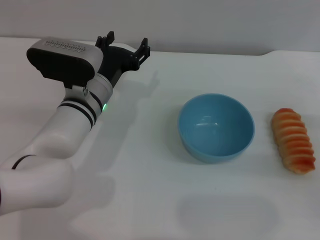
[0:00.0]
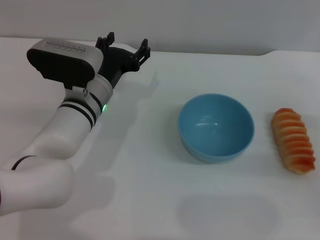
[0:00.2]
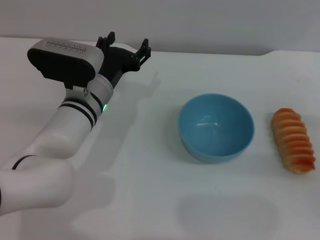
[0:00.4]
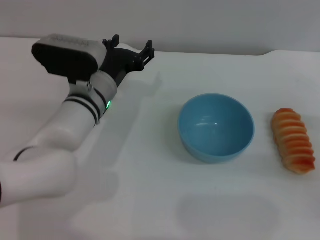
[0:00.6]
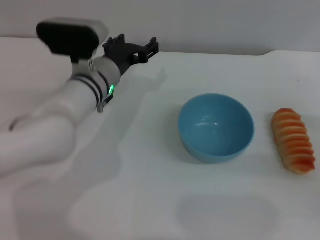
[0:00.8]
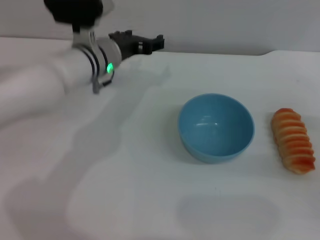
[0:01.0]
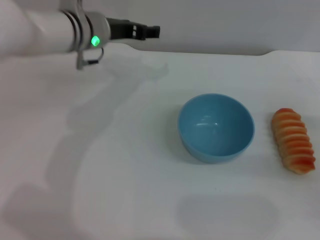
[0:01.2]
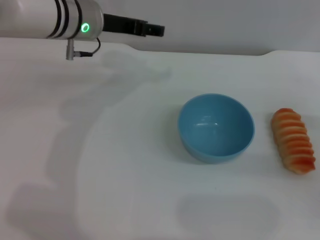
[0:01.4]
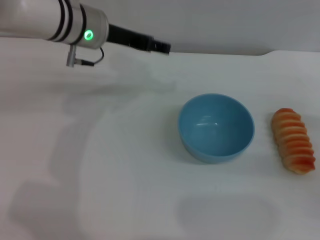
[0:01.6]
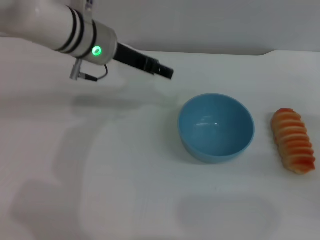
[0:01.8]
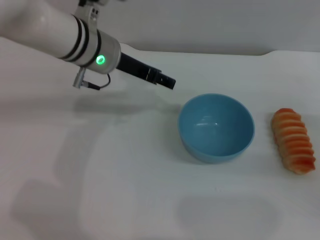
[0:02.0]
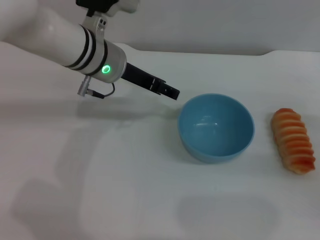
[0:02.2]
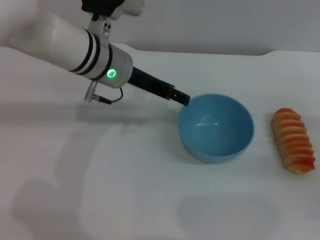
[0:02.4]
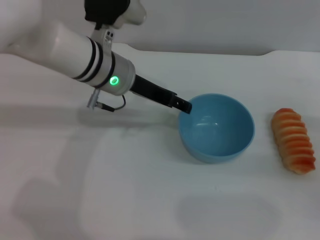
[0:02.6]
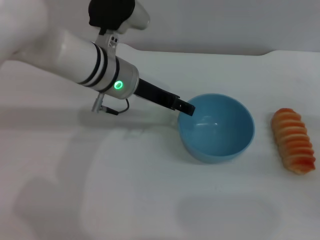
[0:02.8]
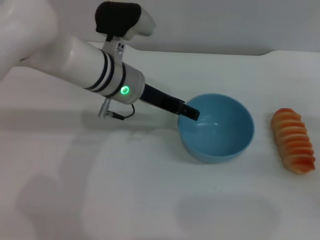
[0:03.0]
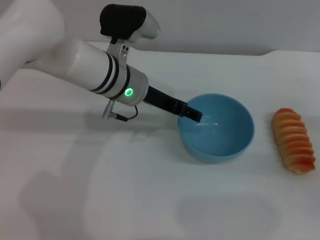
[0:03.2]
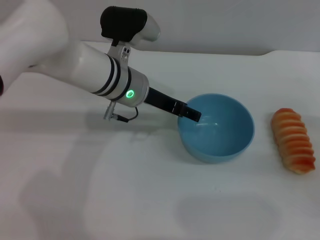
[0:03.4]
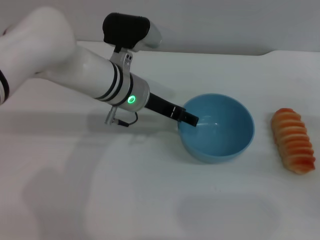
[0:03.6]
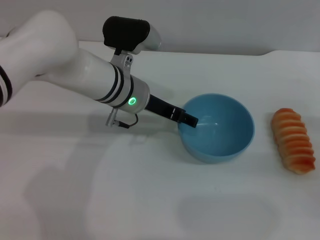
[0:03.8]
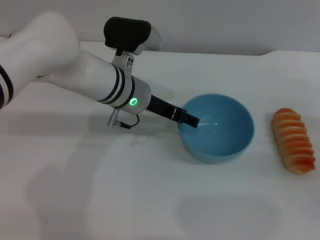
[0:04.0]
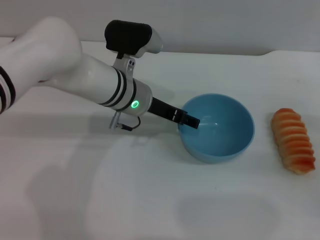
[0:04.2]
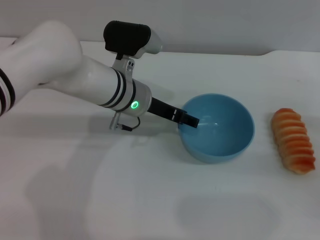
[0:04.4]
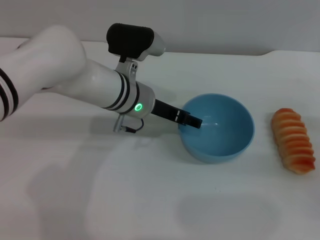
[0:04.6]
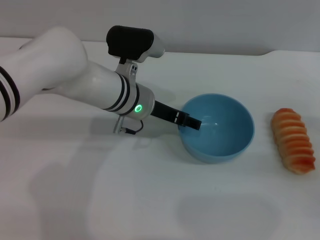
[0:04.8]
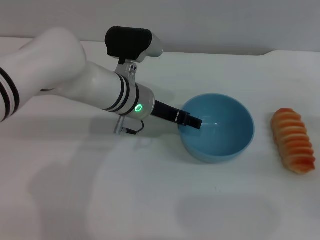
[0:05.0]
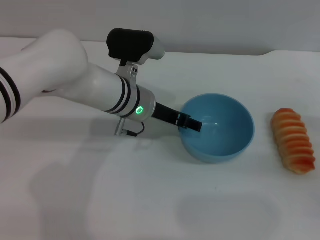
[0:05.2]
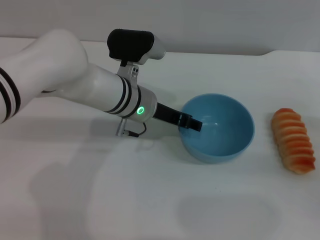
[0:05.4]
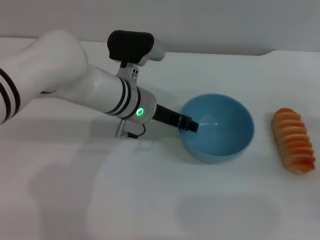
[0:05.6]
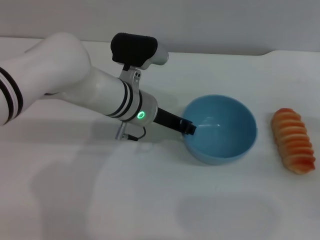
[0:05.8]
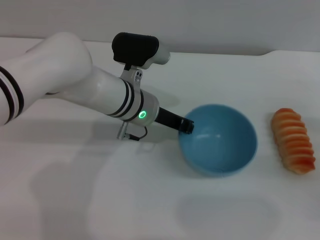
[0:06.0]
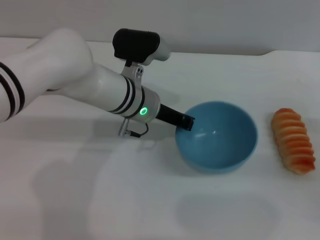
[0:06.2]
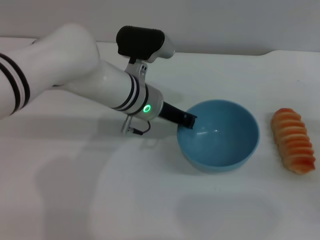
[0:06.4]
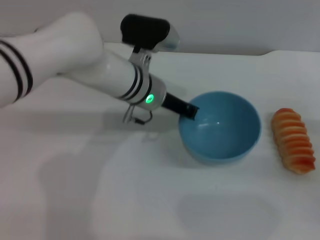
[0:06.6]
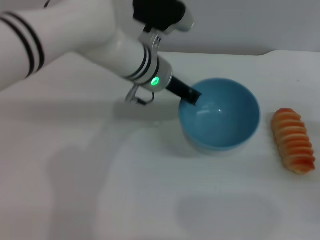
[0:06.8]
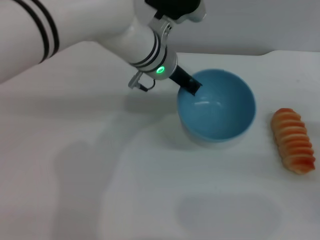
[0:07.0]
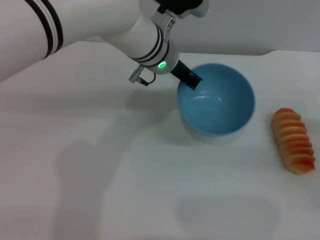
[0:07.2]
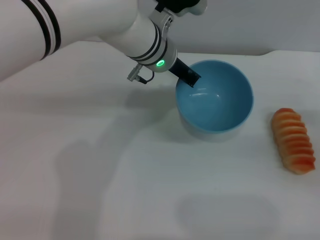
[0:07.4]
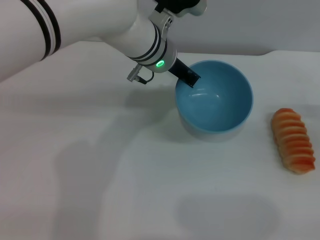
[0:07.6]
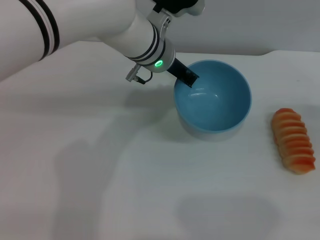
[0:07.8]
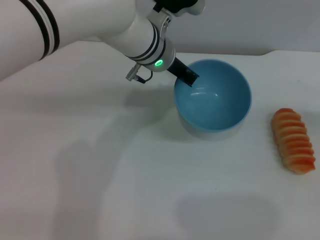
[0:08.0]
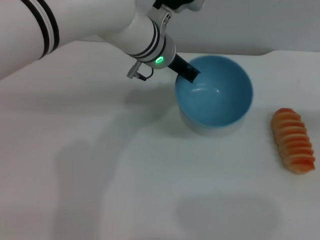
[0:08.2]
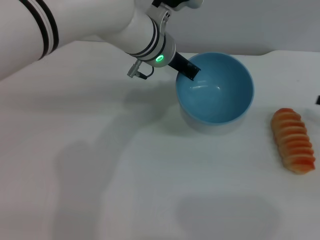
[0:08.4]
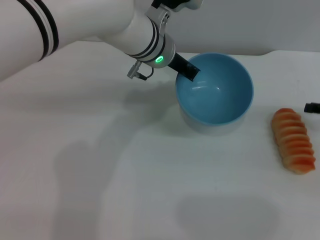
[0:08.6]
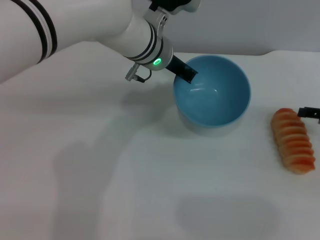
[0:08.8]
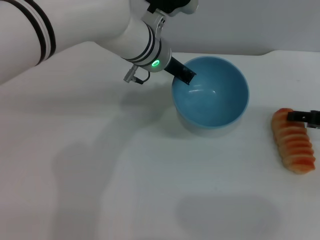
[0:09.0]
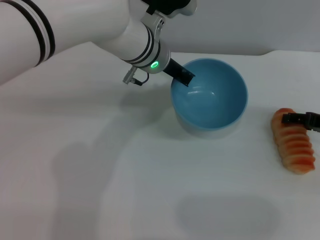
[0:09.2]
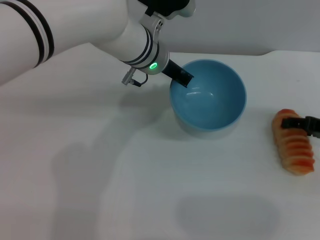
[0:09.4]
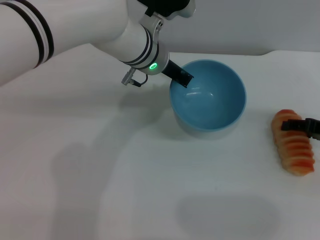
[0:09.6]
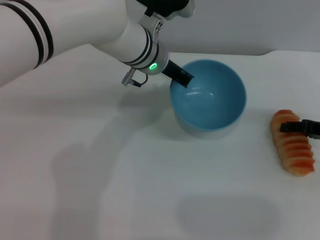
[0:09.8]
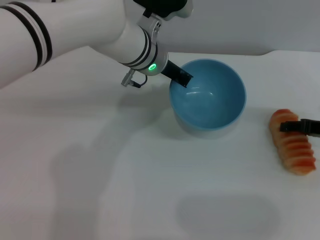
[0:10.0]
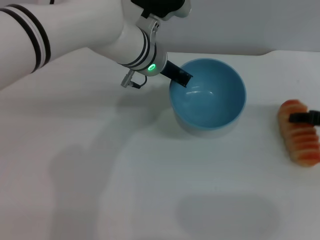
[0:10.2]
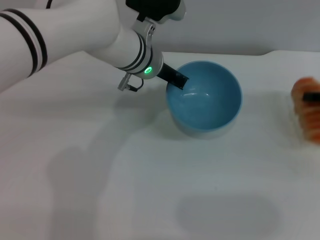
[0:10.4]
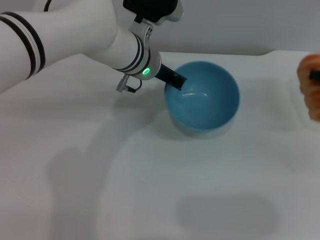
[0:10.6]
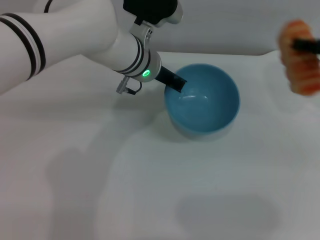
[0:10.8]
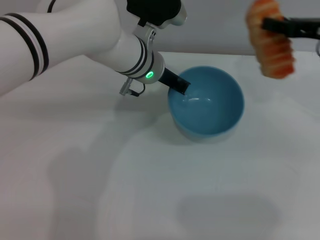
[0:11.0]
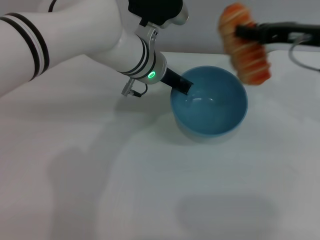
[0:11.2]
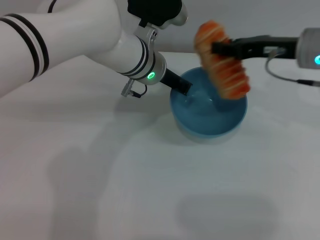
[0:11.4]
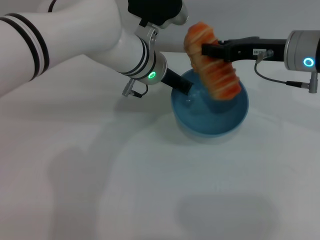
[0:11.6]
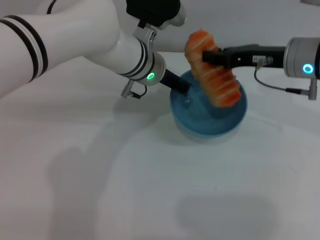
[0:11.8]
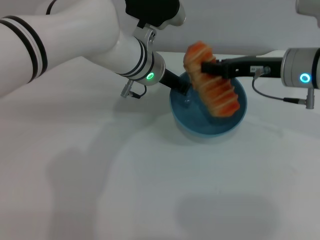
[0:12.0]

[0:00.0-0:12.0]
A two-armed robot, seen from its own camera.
Task of the whole recording: put the bread into the blue bowl and pour it out repeatedly.
Step, 0:00.0 to 0:08.8: Pick up the bowl with the left gripper.
Step, 0:09.2 to 0:10.6: Pick up the bread with the right gripper.
0:00.0 to 0:01.6: The left gripper shifts approximately 15 cm upward and forward.
0:01.6 to 0:03.0: The left gripper goes some 5 cm downward and to the right.
0:03.0 to 0:04.4: The grippers make only small movements.
0:04.4 to 0:06.0: The left gripper closes up.
0:06.0 to 0:07.6: The right gripper changes place by roughly 5 cm. The left gripper travels upward and forward by roughly 10 cm.
0:07.6 to 0:09.0: The right gripper heads to the left, covering some 5 cm.
0:09.0 to 0:10.4: The grippers move only a little.
0:10.4 to 0:12.0: The right gripper is displaced to the left by about 15 cm, and closes.

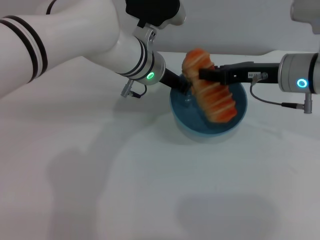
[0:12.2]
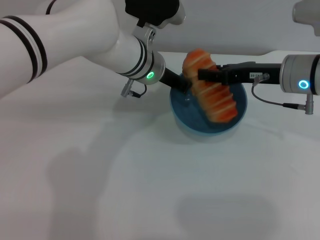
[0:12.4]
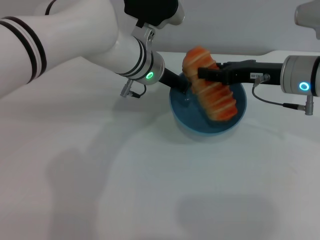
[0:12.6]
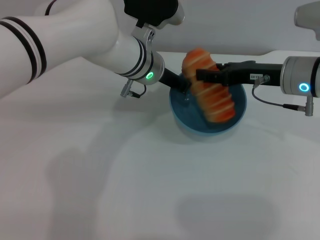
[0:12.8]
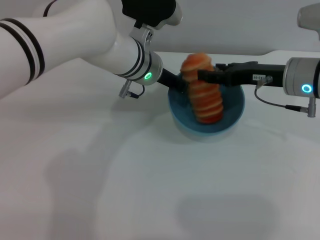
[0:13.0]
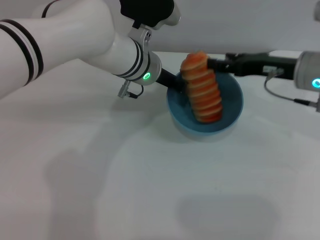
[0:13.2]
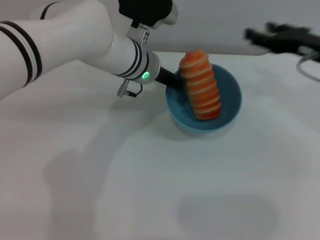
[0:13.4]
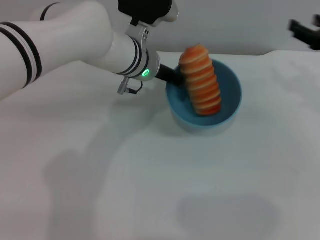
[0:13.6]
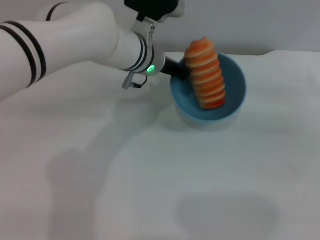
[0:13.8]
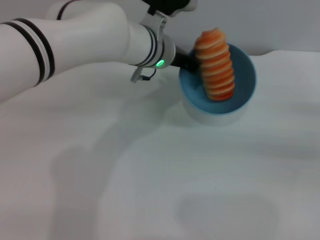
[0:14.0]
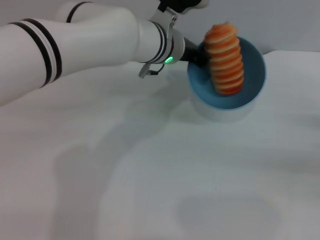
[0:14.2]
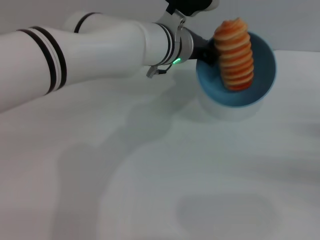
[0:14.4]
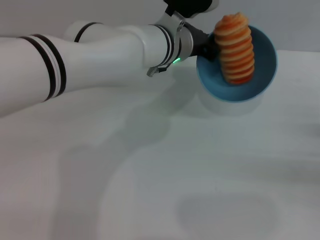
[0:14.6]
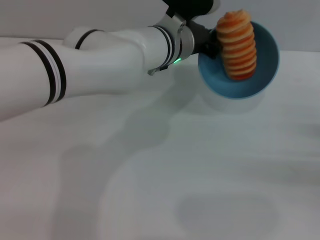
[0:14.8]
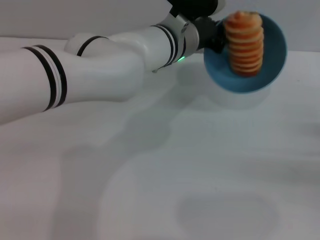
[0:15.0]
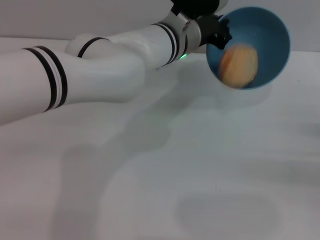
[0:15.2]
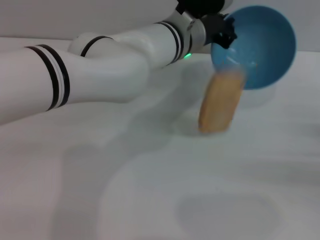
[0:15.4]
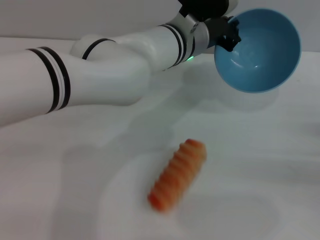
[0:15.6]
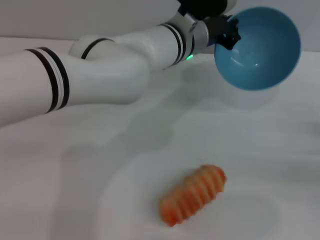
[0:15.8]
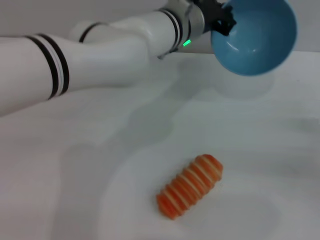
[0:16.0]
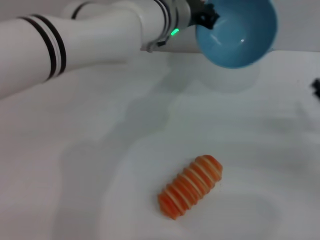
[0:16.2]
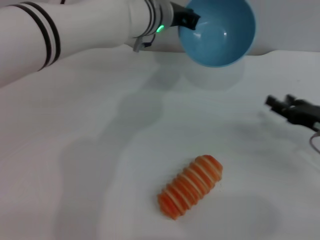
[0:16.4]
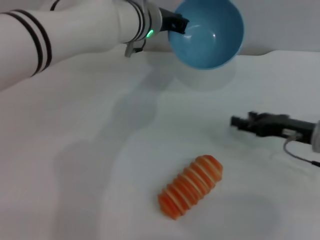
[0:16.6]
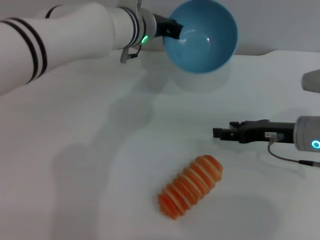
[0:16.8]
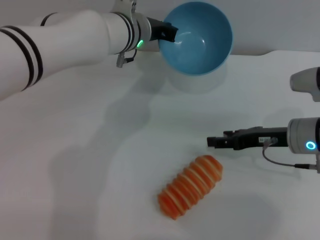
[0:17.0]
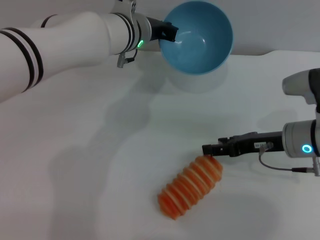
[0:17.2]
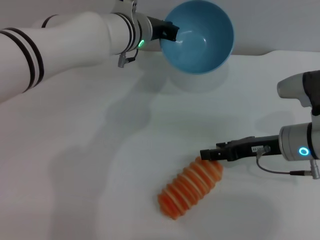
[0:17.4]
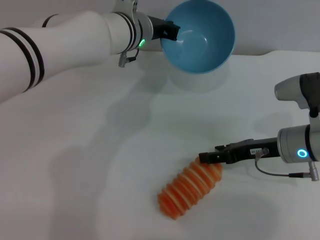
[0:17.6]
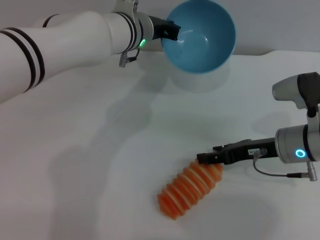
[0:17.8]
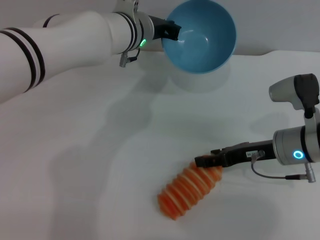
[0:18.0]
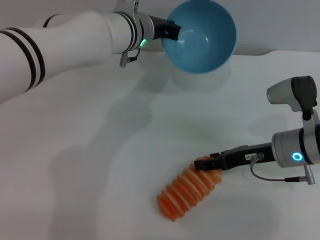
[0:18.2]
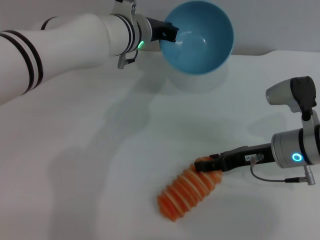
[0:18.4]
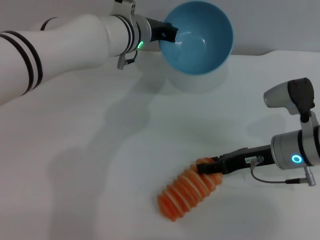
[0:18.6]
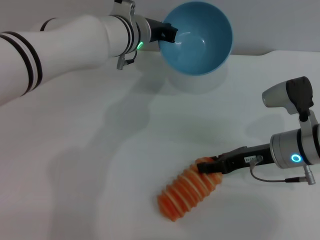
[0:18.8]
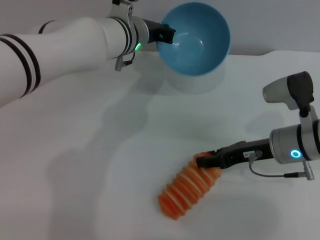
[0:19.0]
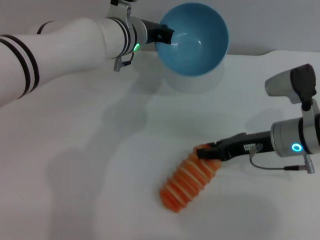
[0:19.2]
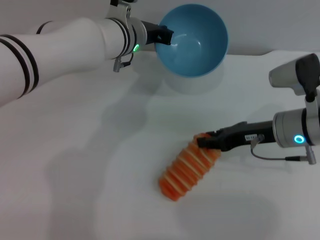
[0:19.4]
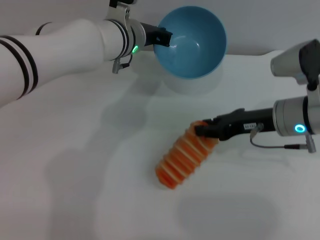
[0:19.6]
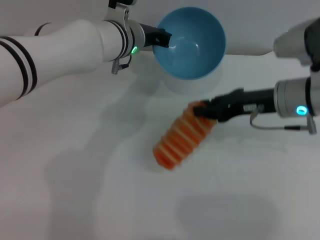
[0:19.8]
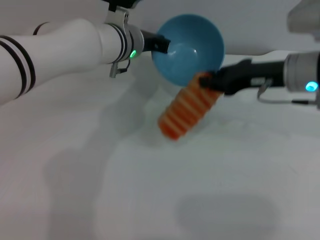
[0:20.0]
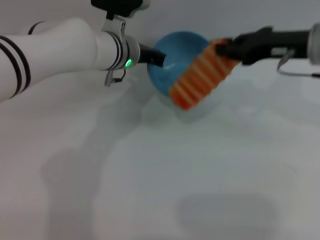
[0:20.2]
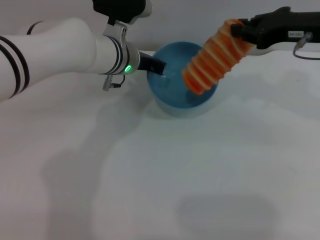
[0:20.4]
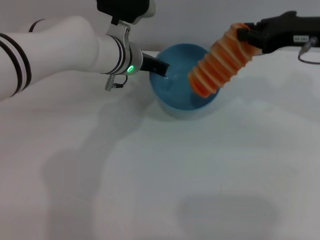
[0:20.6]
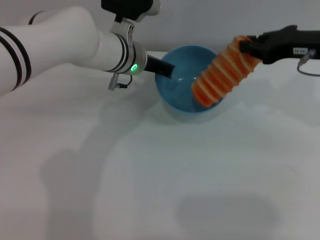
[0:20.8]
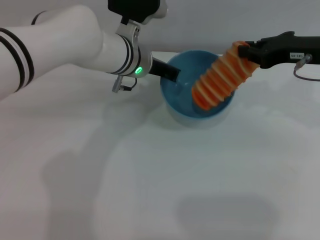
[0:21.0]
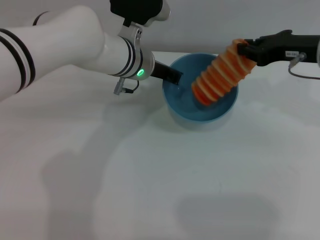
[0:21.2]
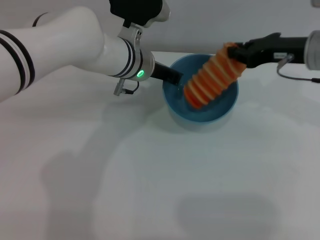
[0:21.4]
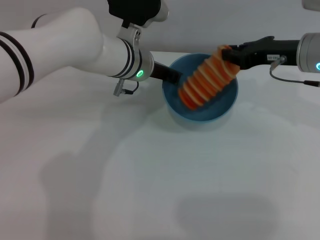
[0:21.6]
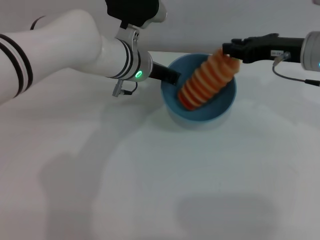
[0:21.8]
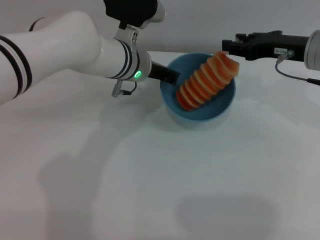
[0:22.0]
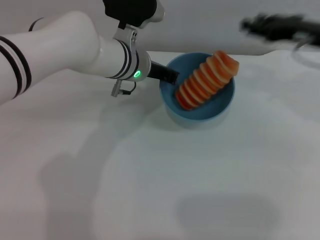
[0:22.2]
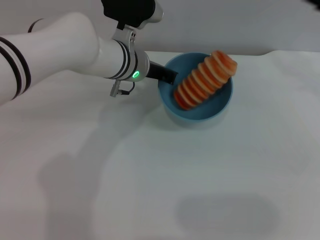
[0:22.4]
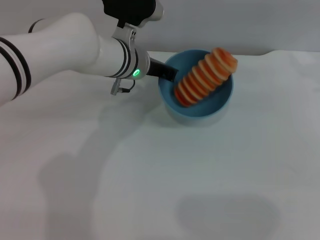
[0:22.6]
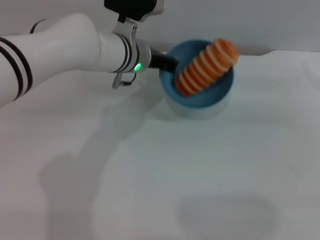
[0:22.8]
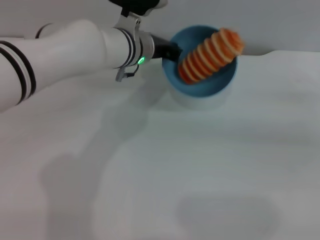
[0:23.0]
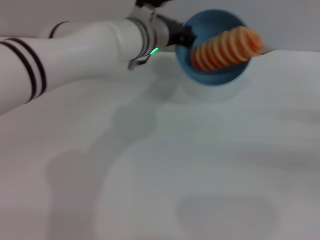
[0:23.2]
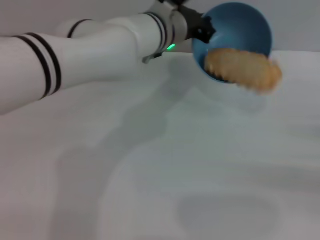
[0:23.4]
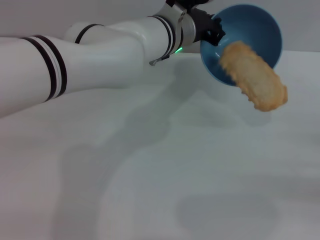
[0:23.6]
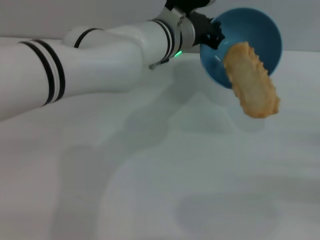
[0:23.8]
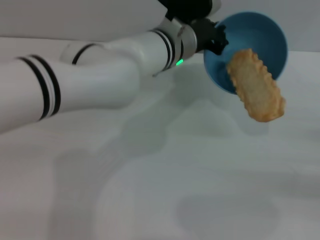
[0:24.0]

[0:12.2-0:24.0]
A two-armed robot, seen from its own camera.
Task of the whole recording: put the bread into the blue bowl and pour it out repeatedly.
Step, 0:13.4 to 0:15.6: Pour the bread out of the bowl.
Step, 0:15.8 to 0:20.4: Pick up the bread with the right gripper.
Step, 0:20.6 to 0:22.0: Place the bread into the bowl.
0:12.2 to 0:13.6: The right gripper heads to the right, covering some 10 cm, and opens.
0:13.6 to 0:15.2: The left gripper heads to the right, covering roughly 5 cm. The right gripper travels backward, downward and to the right by some 15 cm.
0:15.2 to 0:16.6: The right gripper travels to the left and forward by approximately 15 cm. The left gripper shifts some 5 cm to the left.
0:16.6 to 0:18.2: The right gripper moves to the left, some 5 cm.
0:18.2 to 0:19.6: The right gripper shifts by about 5 cm, and closes.
0:19.6 to 0:21.0: The right gripper goes about 10 cm upward.
0:21.0 to 0:22.6: The right gripper heads to the right, covering roughly 10 cm, and opens its fingers.
0:22.6 to 0:24.0: The left gripper travels to the right by about 5 cm, while the right gripper moves backward, downward and to the right, about 20 cm.
